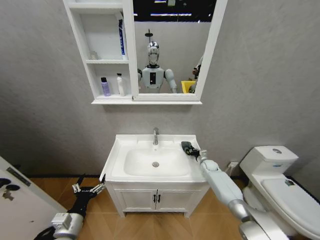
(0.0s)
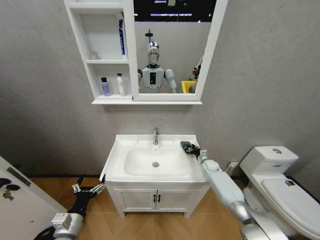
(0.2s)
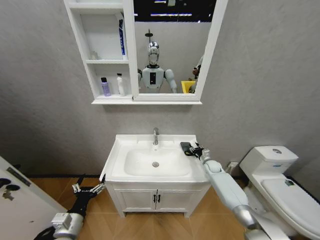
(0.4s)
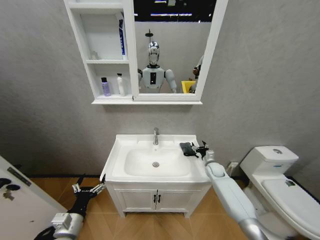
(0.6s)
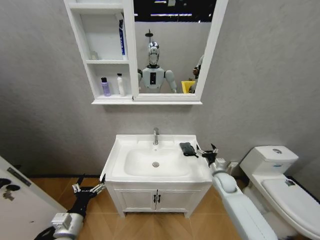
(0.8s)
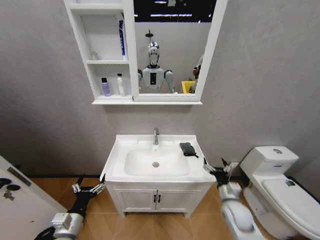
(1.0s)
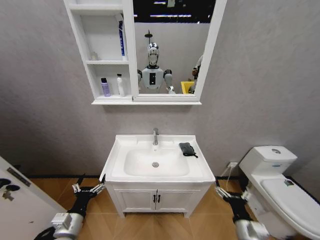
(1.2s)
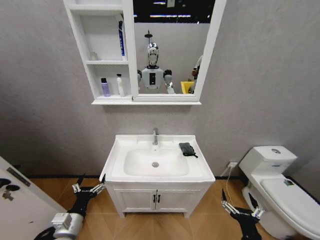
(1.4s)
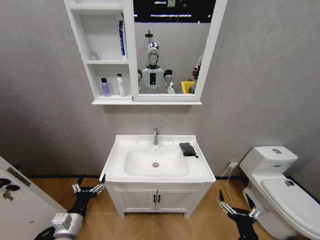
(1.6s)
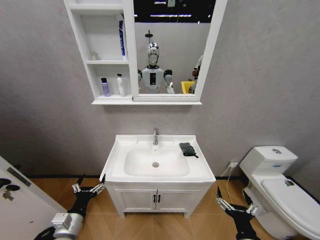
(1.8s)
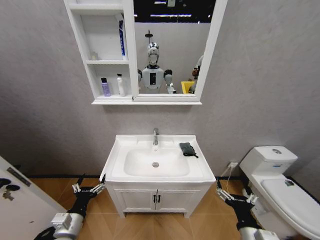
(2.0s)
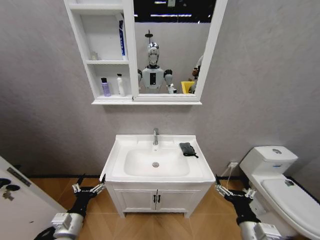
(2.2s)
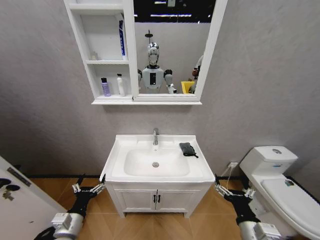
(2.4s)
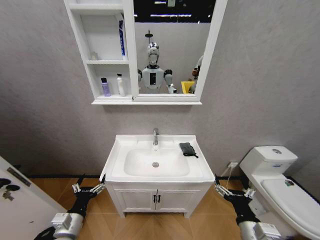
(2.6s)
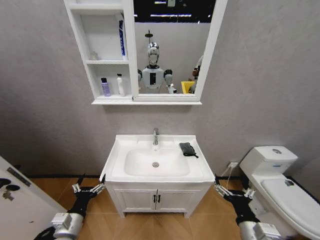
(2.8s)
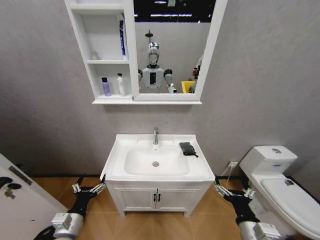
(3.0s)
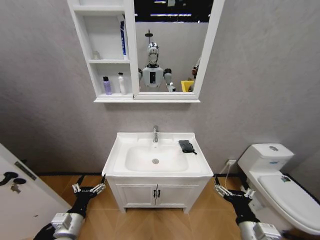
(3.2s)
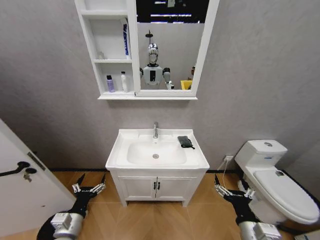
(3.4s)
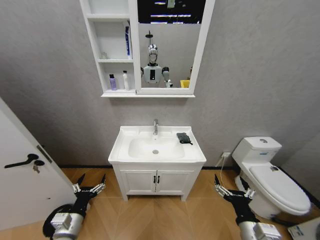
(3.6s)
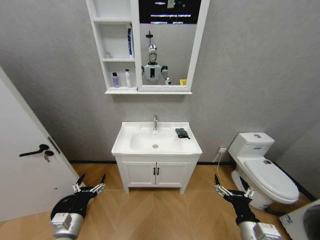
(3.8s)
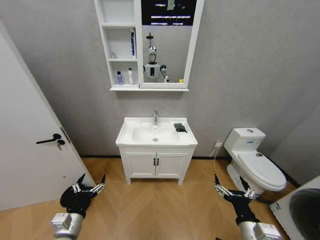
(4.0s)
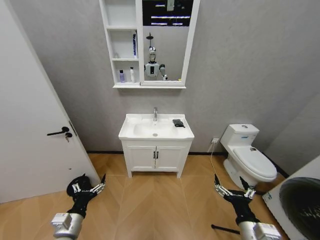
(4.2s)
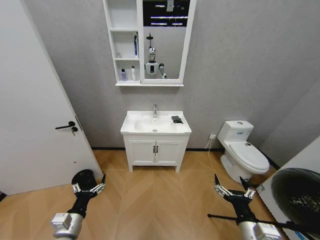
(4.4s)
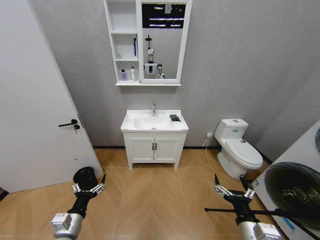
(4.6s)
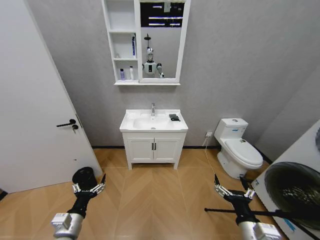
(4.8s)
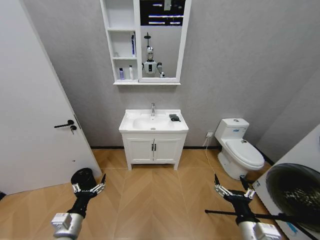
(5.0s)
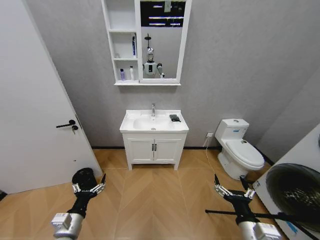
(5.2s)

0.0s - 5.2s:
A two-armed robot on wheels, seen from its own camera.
Task of the whole recording: Move facial cleanser and shampoo from washbasin to cabinet, then wipe washbasin with towel.
0.0s - 1.8s: The right gripper is displaced backward by about 50 cm, and opens up.
1.8s - 3.4s: The right gripper shifts by about 5 cm.

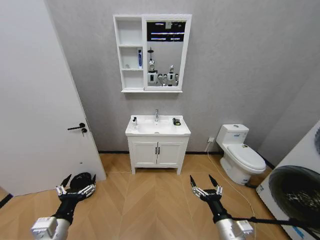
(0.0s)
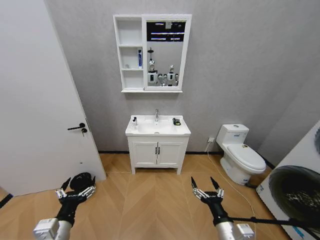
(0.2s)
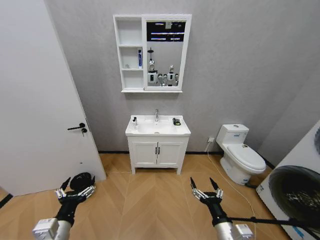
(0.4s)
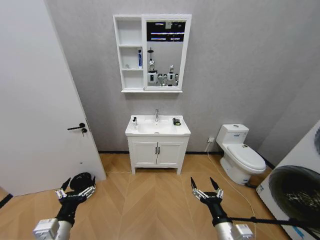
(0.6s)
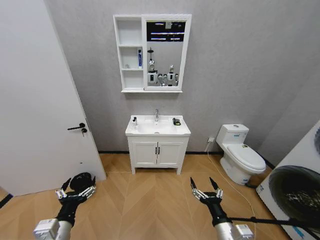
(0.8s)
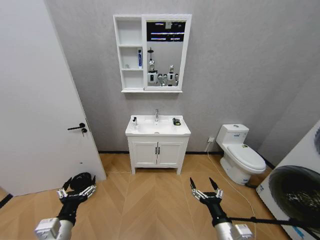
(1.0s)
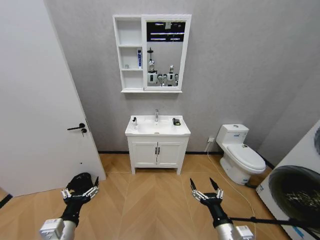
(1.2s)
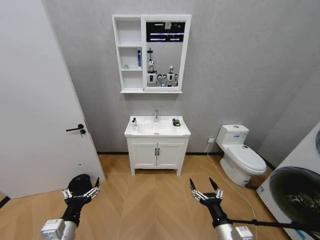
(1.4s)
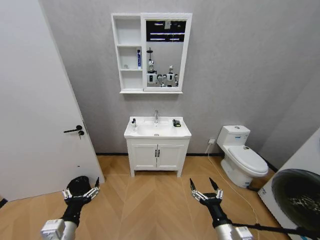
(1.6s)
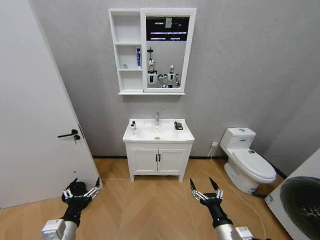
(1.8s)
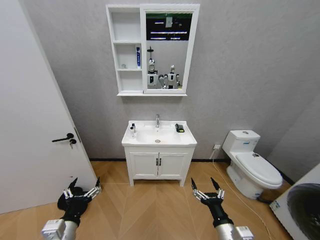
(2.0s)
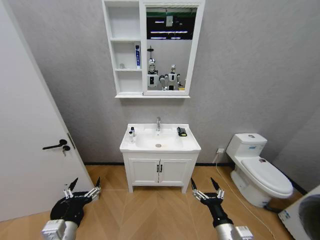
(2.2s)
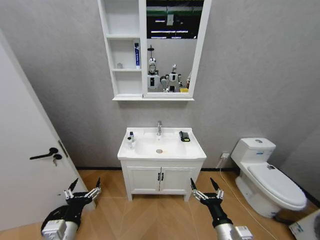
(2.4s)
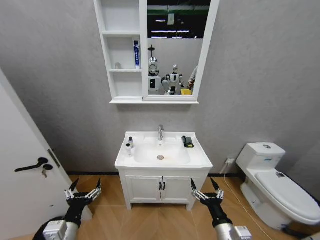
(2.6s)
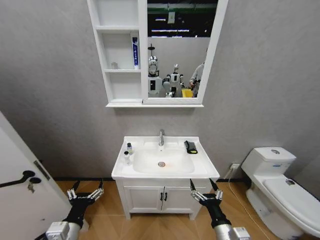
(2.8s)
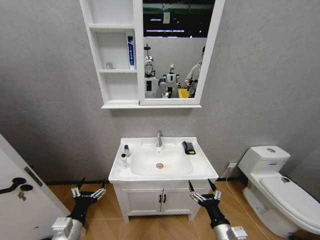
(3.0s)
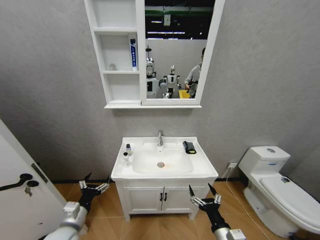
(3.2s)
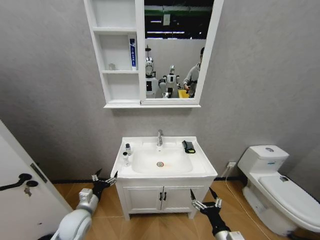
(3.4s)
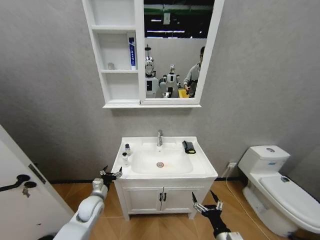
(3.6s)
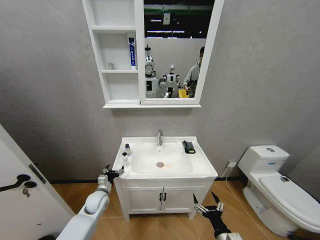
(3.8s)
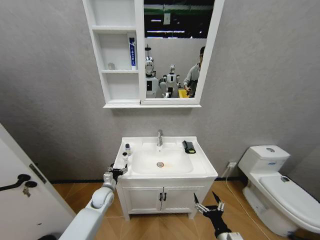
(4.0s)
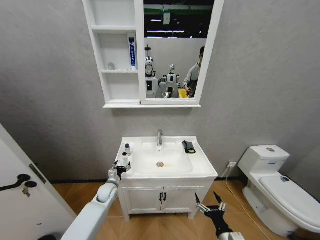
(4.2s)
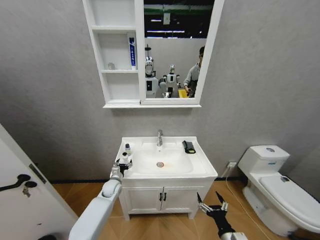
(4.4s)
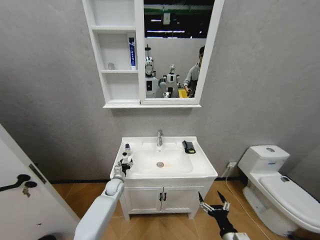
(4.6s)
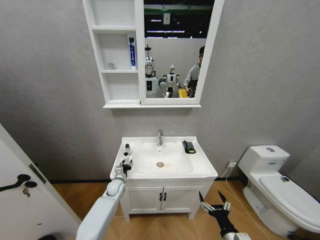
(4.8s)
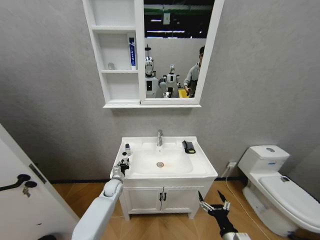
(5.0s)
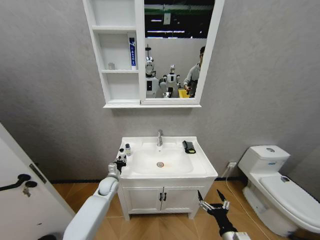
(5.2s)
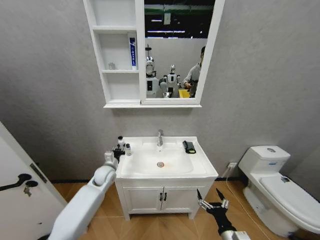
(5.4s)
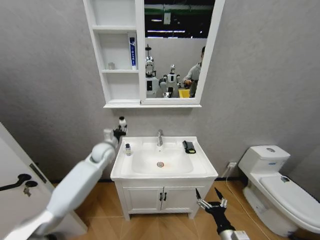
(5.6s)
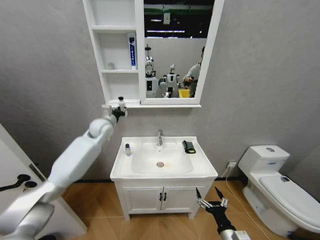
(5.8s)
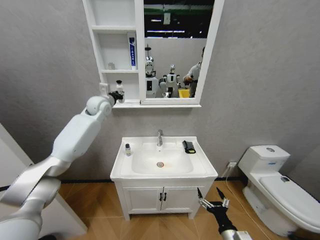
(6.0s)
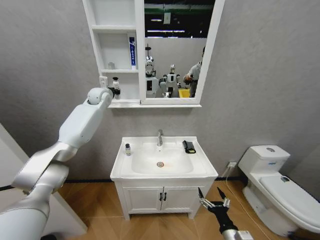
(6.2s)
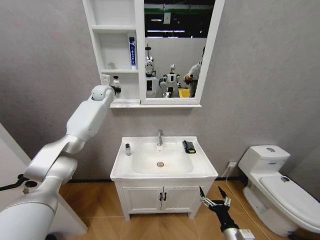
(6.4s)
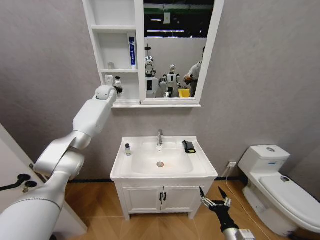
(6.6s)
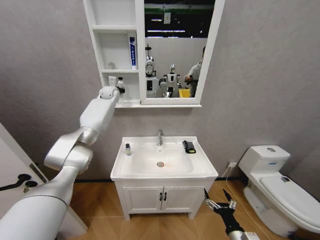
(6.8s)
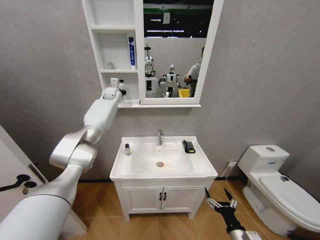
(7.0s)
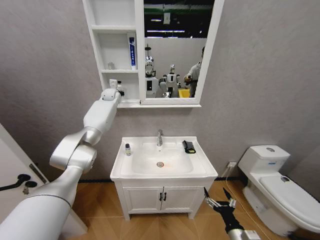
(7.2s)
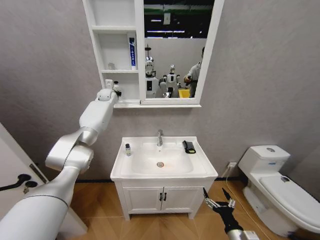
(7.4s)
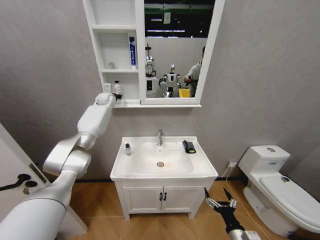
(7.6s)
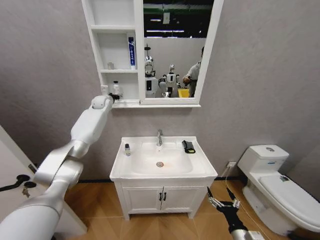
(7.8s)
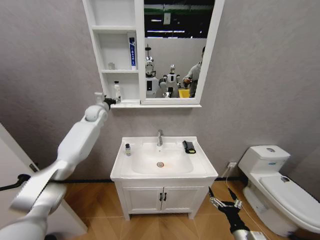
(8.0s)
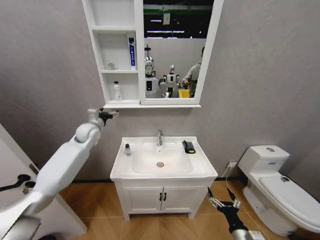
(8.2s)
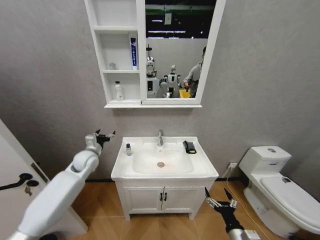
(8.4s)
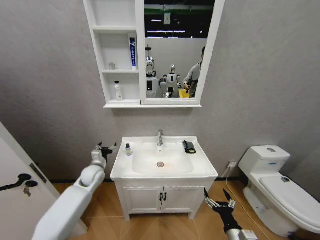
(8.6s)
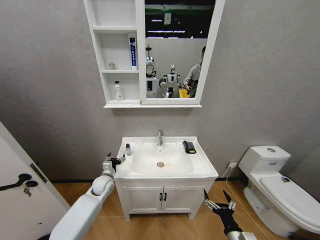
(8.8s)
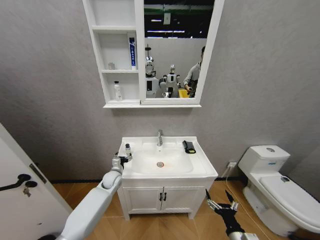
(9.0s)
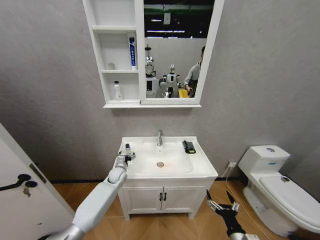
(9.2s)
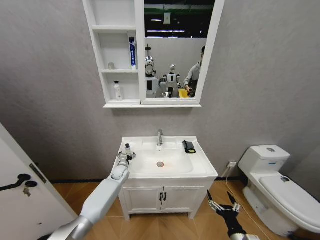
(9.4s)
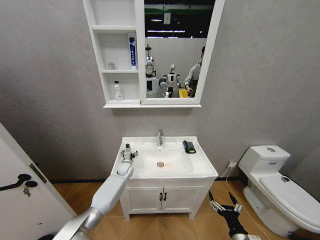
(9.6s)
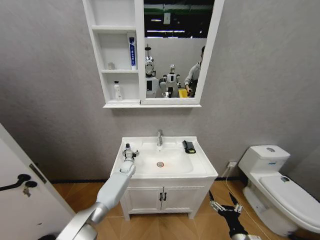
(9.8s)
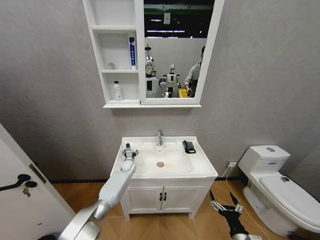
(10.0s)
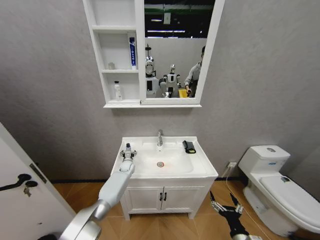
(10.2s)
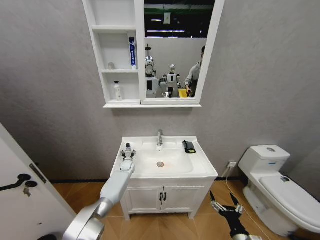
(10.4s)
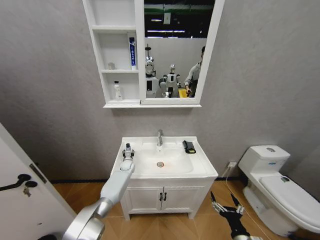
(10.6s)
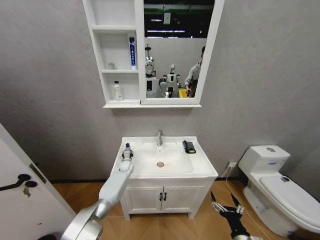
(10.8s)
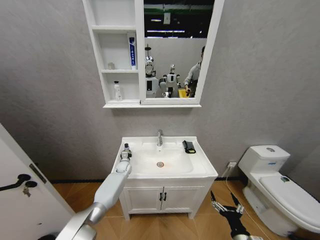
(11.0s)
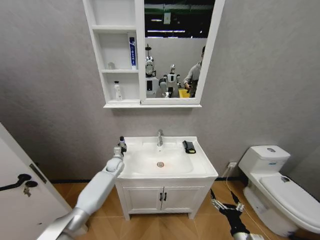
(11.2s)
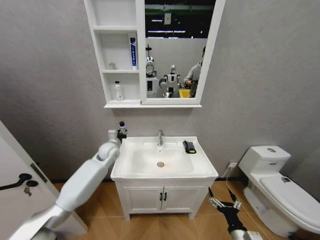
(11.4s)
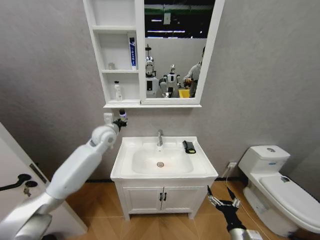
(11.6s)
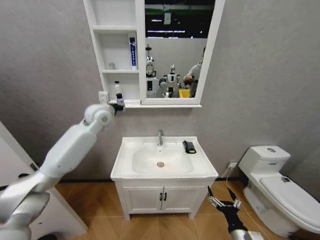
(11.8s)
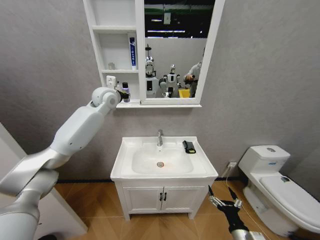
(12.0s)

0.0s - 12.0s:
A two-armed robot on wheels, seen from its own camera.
Task of the whole recording: Move facial cleanser and shampoo from washbasin to cabinet, then wipe washbasin with towel.
3.0s - 4.4s: The left gripper travels forward and downward by approximately 30 cm; the right gripper goes some 5 cm downward.
4.4s - 6.0s: The left gripper is displaced upward and forward by about 50 cm, and closes up.
6.0s - 7.6s: The left gripper shifts roughly 10 cm forward.
7.6s - 9.0s: The left gripper shifts roughly 40 cm downward and backward, and opens up.
9.0s - 10.4s: The left gripper goes approximately 15 cm forward, downward and to the right.
10.4s - 12.0s: The left gripper is displaced upward by approximately 50 cm, and closes up.

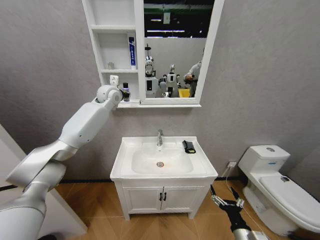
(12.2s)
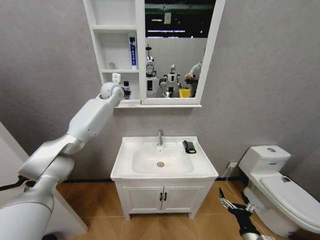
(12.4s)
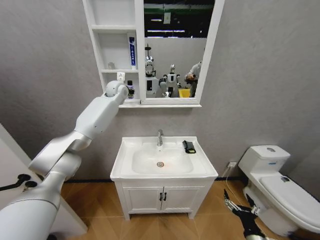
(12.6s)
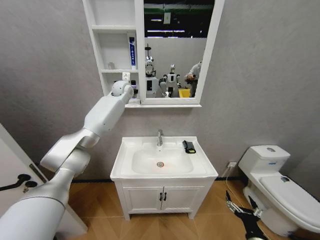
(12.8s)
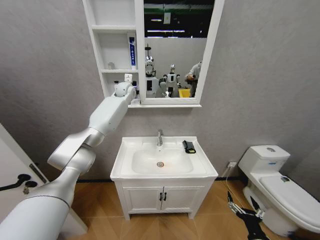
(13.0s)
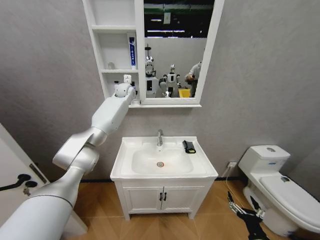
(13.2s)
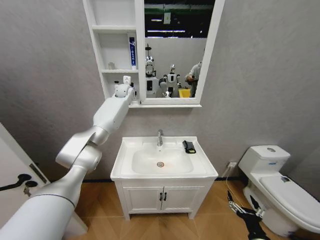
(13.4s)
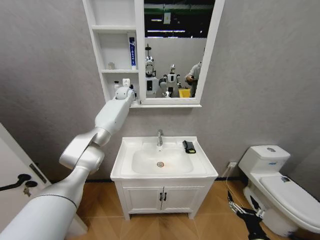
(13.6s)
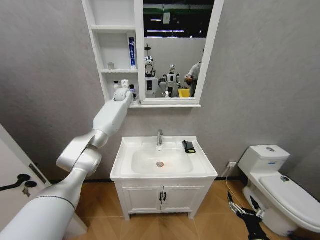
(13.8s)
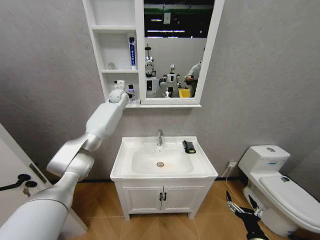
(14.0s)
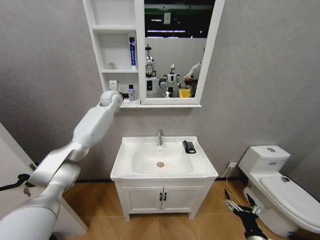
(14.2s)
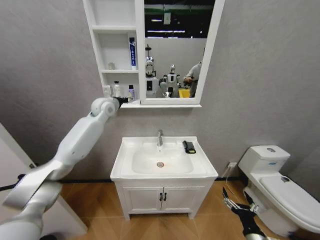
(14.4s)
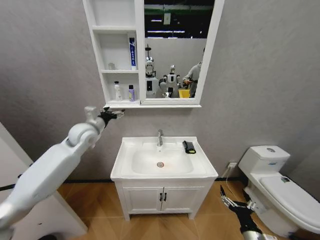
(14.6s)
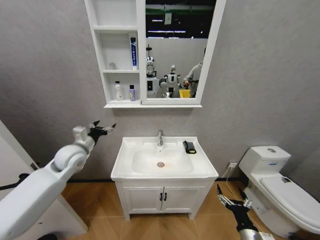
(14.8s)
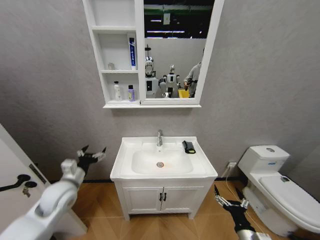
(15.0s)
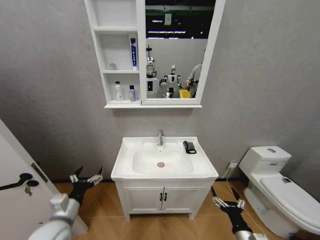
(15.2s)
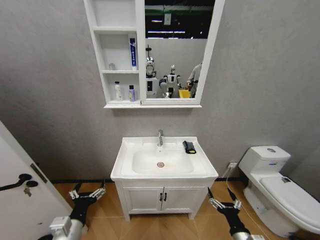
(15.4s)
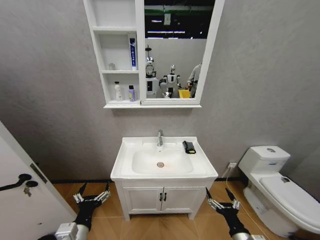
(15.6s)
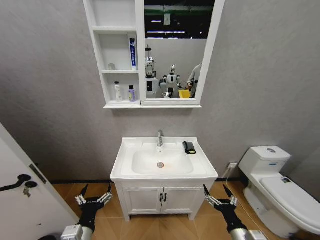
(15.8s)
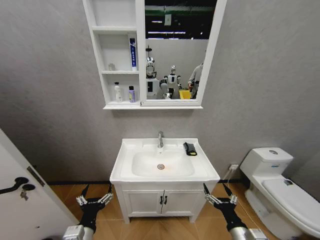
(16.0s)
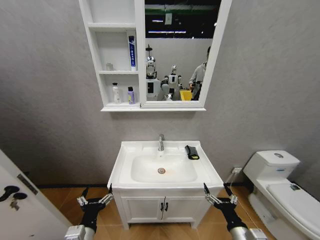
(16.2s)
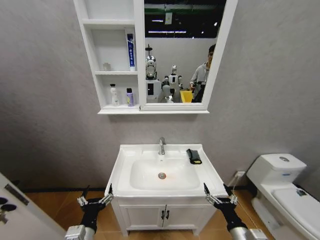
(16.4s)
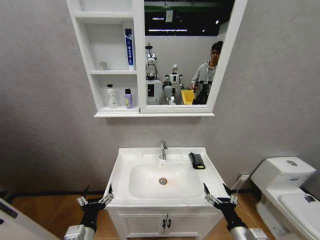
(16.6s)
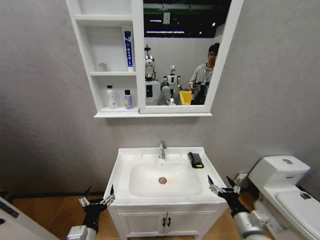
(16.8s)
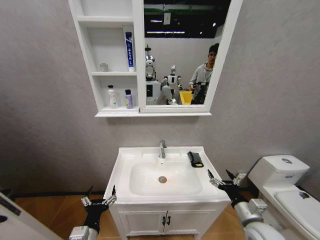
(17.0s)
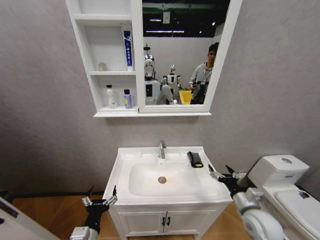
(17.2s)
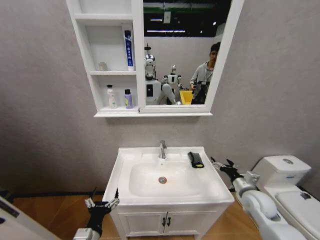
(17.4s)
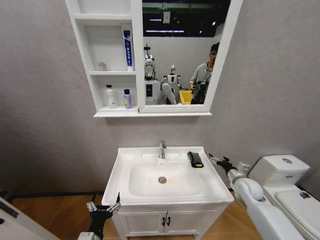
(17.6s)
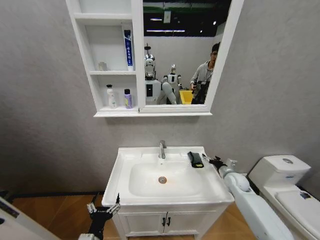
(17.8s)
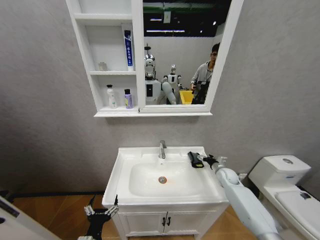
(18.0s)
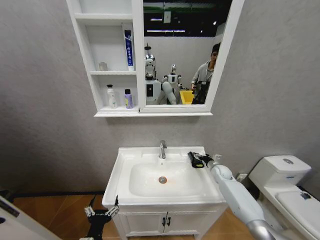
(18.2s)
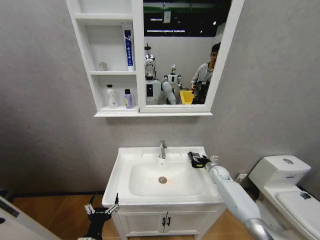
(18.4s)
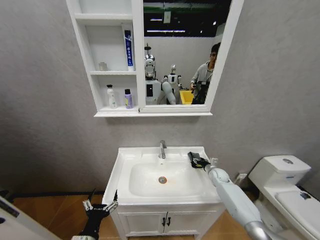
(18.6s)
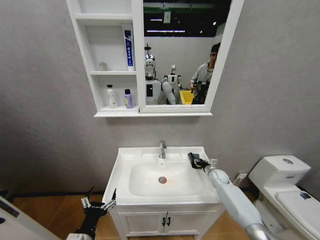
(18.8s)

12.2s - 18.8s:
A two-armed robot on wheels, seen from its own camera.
Task of the whole recording: Move facial cleanser and shampoo from washbasin to cabinet, then wipe washbasin with towel.
12.2s - 13.8s: The right gripper is displaced to the right by about 5 cm; the left gripper heads forward, covering some 10 cm.
13.8s - 15.4s: The left gripper shifts roughly 60 cm backward and downward, and opens its fingers; the right gripper shifts some 5 cm to the left.
15.4s - 17.2s: The left gripper shifts about 5 cm to the right. Meanwhile the right gripper is displaced forward, upward and to the right by about 15 cm.
17.2s - 18.8s: The right gripper is displaced forward and downward by about 25 cm, and closes up.
